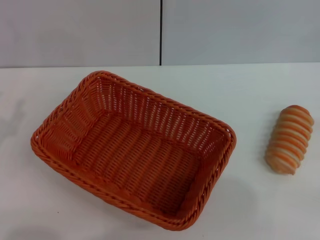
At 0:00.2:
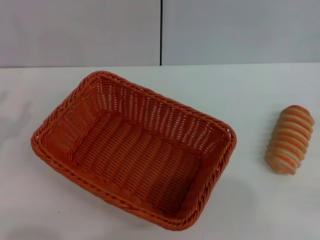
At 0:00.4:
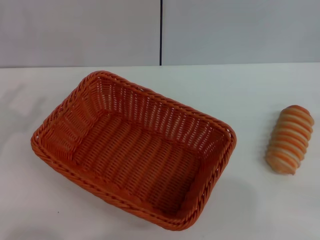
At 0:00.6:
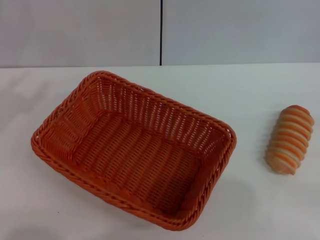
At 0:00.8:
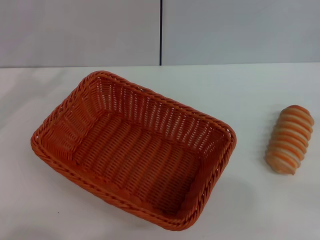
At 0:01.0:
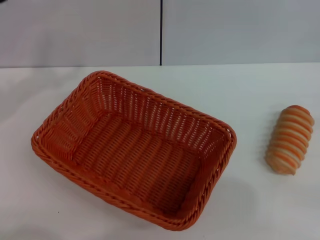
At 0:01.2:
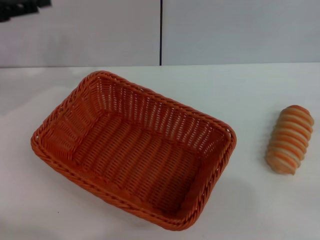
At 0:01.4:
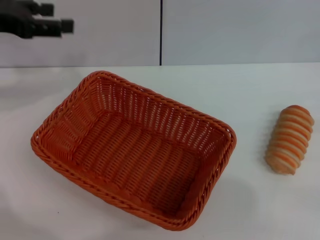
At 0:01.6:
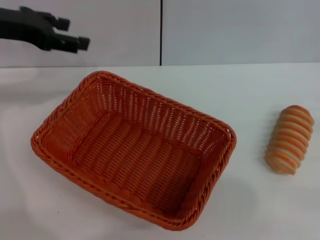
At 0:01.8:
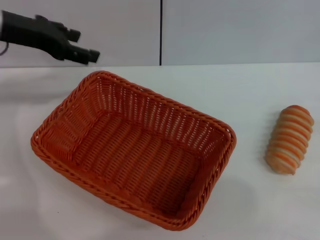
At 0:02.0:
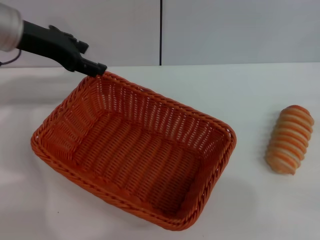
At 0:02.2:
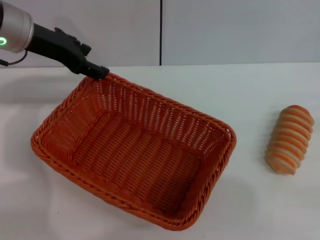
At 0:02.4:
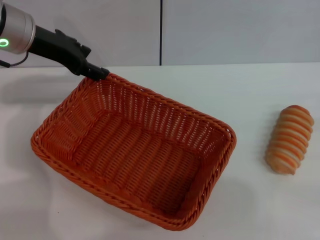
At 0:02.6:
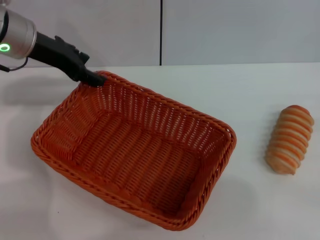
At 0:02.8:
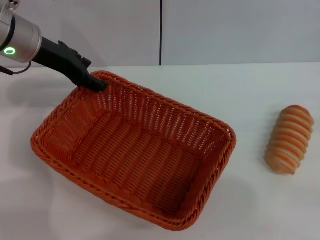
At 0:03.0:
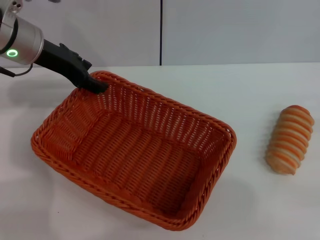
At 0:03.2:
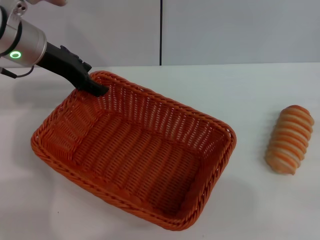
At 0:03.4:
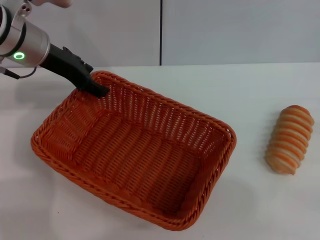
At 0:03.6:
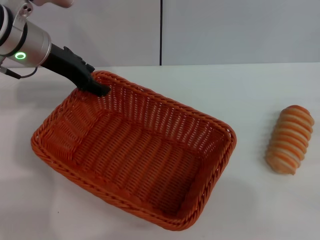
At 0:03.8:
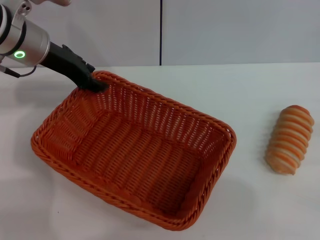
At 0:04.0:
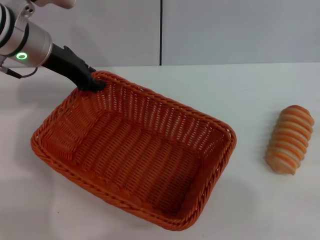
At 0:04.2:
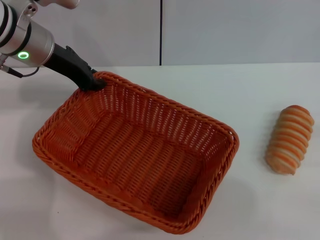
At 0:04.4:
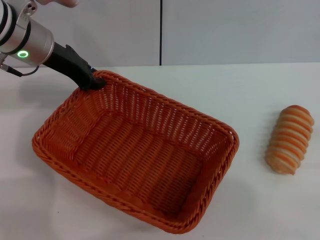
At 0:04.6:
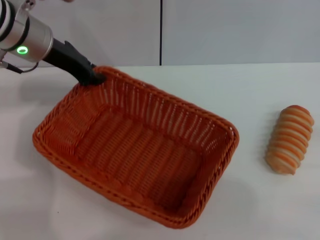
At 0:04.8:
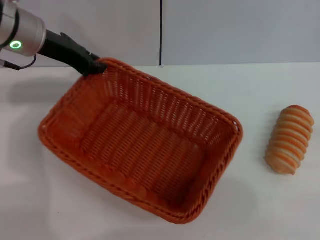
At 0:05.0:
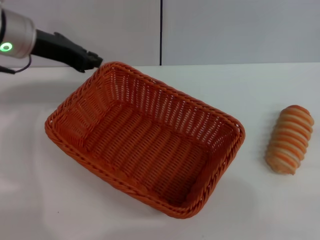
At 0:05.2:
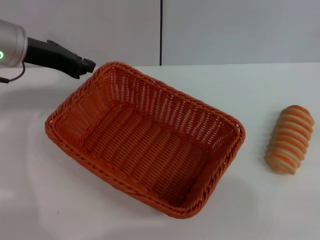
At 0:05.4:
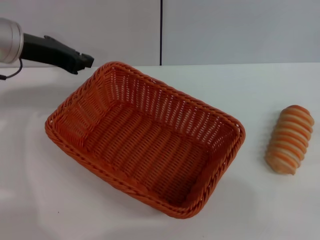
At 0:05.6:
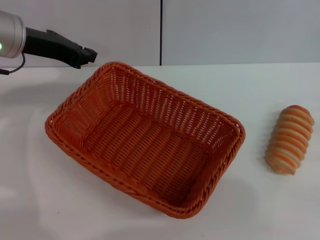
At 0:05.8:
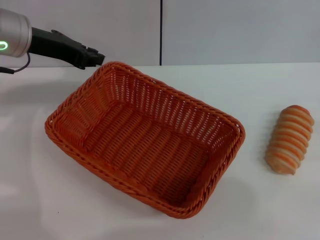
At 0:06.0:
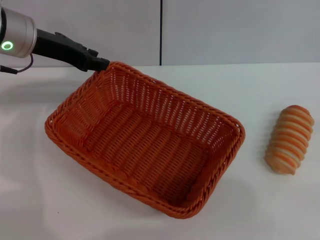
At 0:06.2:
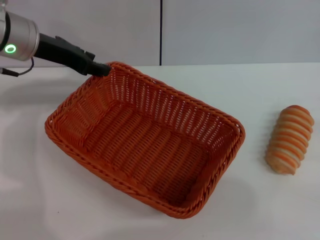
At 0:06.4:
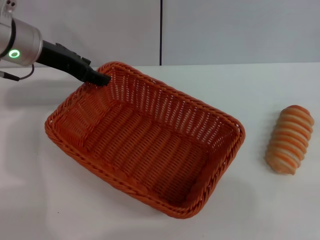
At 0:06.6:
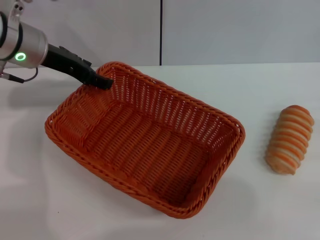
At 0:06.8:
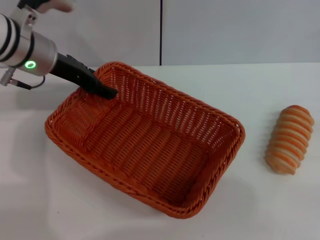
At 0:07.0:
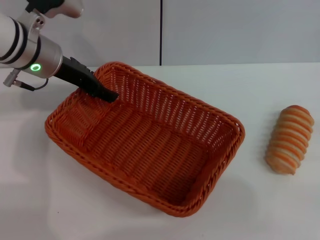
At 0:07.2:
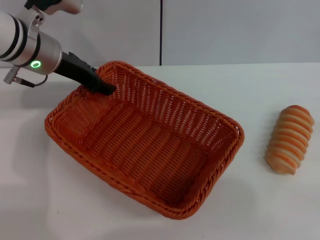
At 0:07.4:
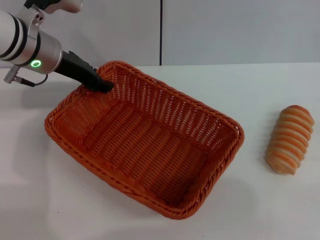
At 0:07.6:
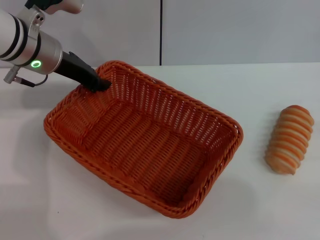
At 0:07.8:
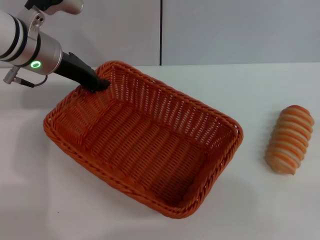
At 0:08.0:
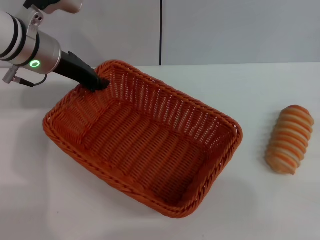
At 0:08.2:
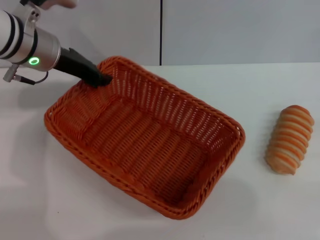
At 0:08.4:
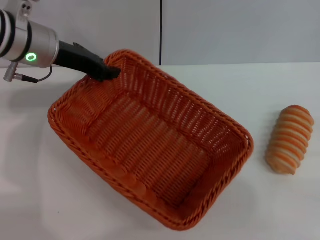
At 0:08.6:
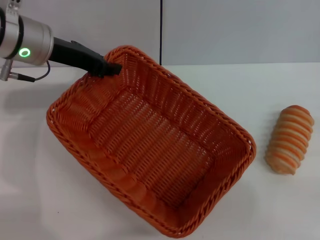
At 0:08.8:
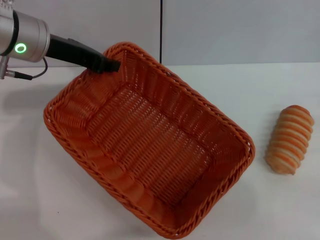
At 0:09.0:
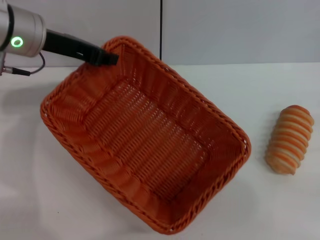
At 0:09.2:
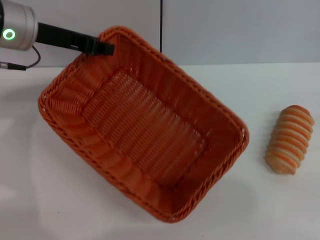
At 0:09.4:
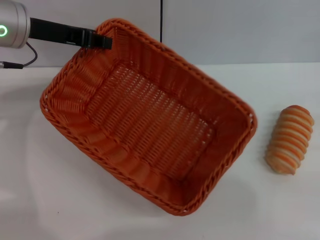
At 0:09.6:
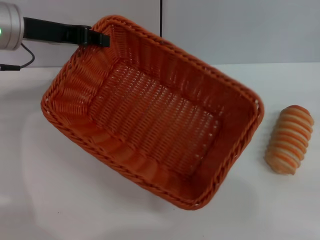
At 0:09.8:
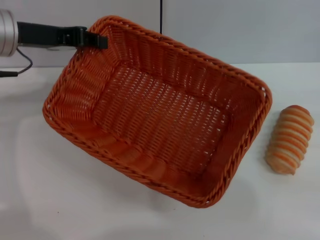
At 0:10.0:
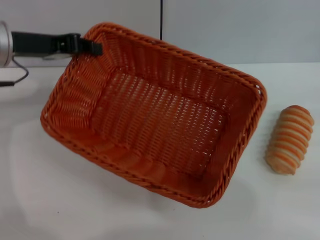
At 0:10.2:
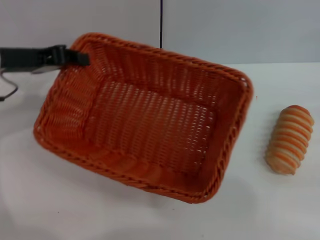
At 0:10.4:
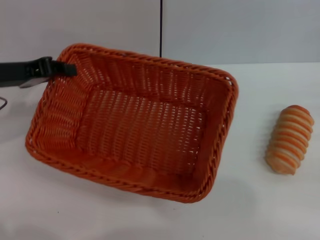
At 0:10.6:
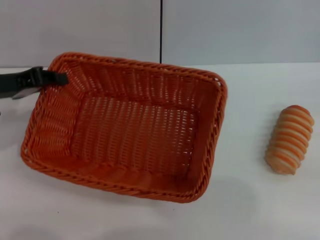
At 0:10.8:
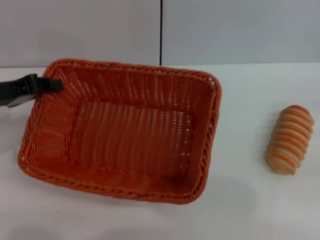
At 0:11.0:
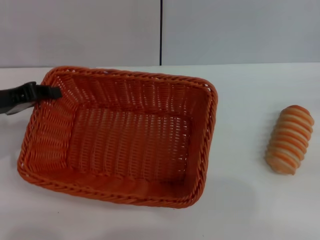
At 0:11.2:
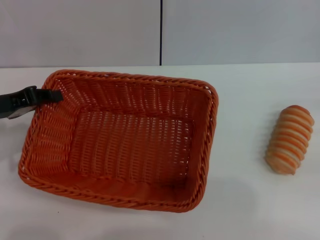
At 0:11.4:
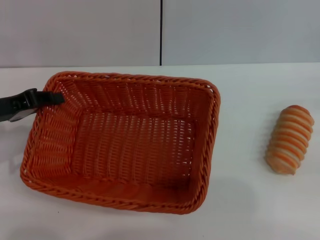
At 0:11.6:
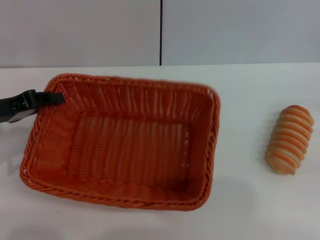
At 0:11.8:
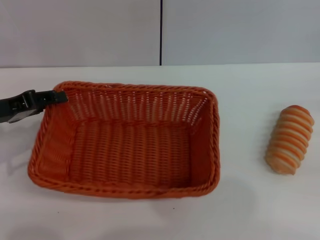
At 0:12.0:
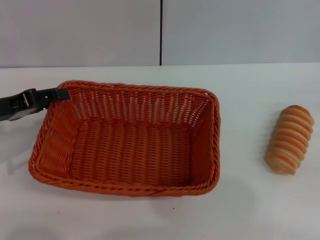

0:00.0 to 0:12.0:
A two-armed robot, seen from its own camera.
Step, 0:00.0 to 0:09.4: Pick up the light basket with the left gripper.
0:00.0 to 0:01.6: The left gripper moves forward and upward, approximately 25 cm.
0:01.6 to 0:03.0: The left gripper travels to the right by some 5 cm.
0:03.0 to 0:04.4: The left gripper closes its fingers.
0:06.0 to 0:07.6: The left gripper opens its fingers.
0:07.6 to 0:09.0: The left gripper ends up about 5 cm from where it was, and closes its fingers.
0:09.0 to 0:10.4: The left gripper travels to the left and backward by some 10 cm.
0:10.4 to 0:12.0: The left gripper moves approximately 5 cm.

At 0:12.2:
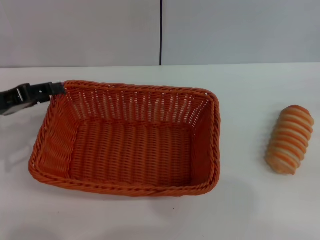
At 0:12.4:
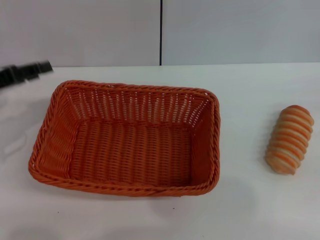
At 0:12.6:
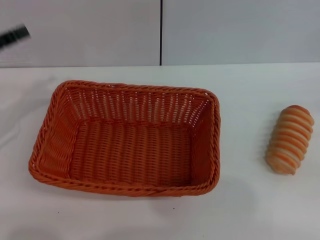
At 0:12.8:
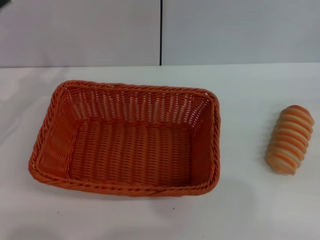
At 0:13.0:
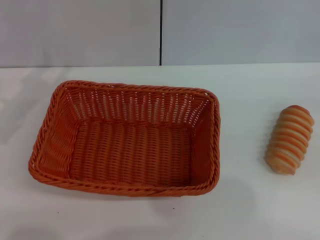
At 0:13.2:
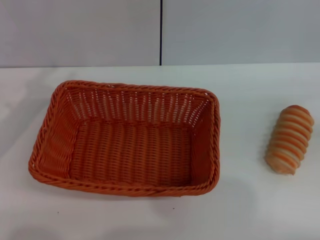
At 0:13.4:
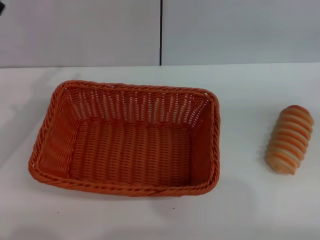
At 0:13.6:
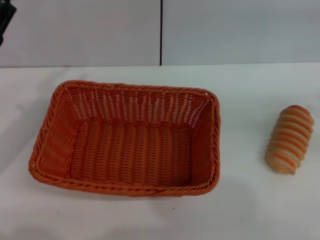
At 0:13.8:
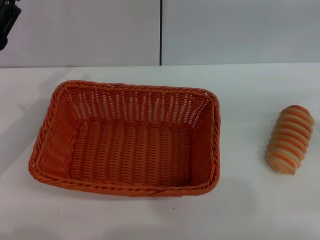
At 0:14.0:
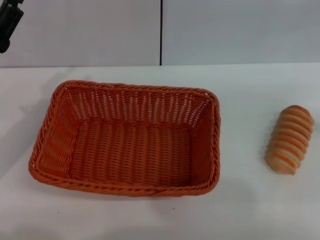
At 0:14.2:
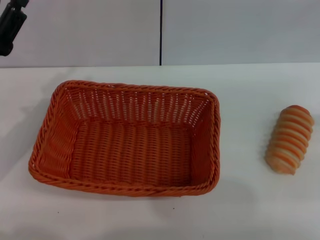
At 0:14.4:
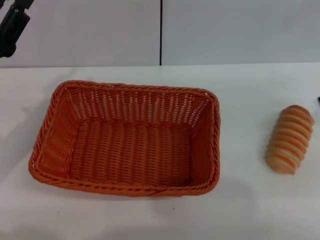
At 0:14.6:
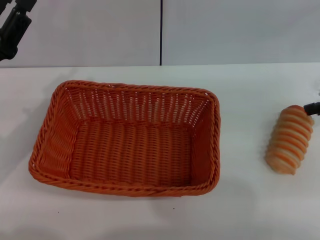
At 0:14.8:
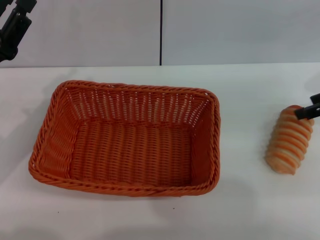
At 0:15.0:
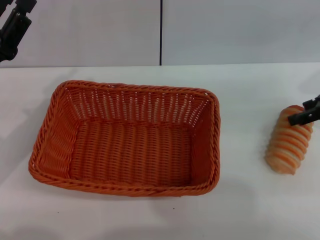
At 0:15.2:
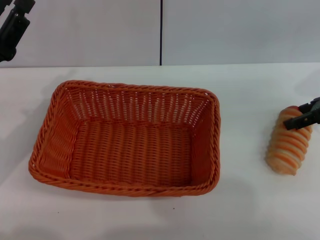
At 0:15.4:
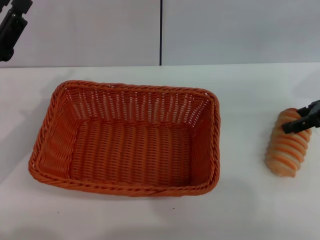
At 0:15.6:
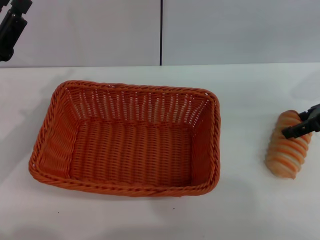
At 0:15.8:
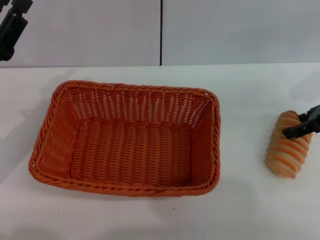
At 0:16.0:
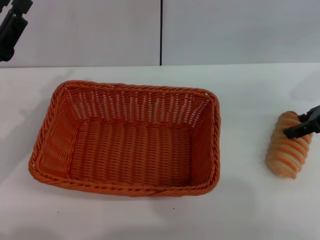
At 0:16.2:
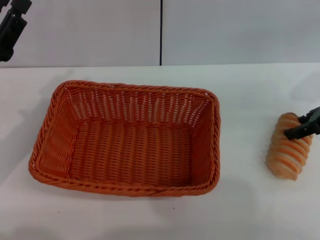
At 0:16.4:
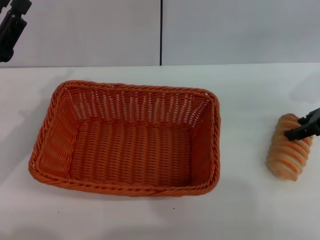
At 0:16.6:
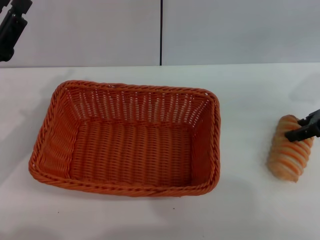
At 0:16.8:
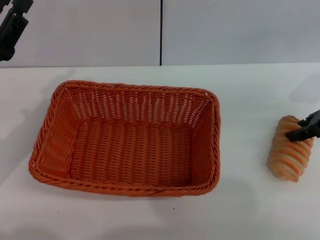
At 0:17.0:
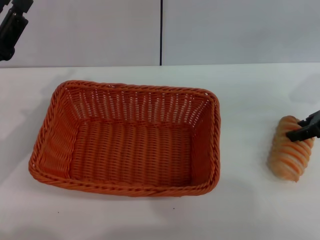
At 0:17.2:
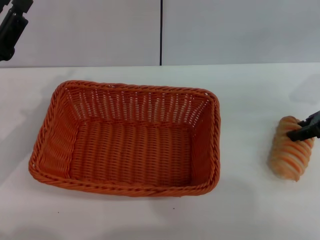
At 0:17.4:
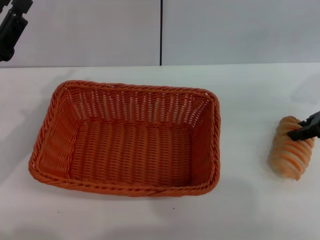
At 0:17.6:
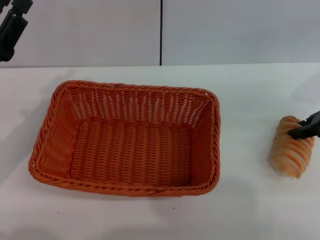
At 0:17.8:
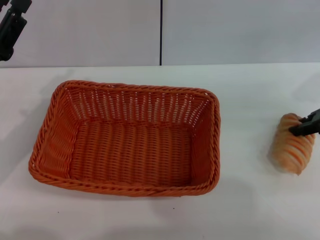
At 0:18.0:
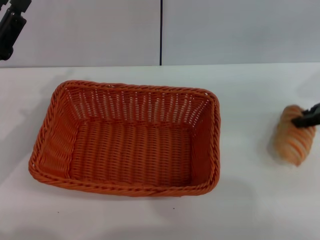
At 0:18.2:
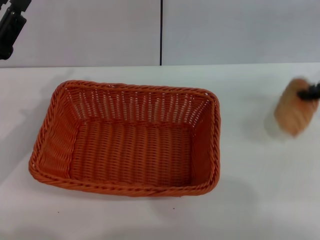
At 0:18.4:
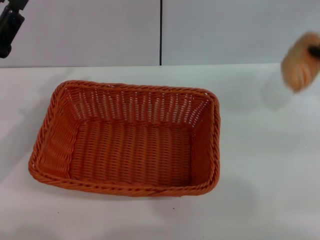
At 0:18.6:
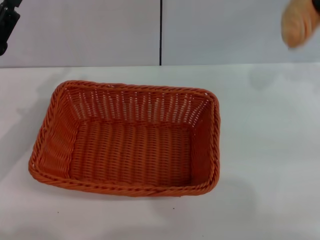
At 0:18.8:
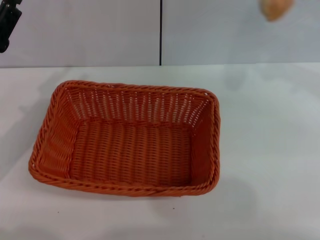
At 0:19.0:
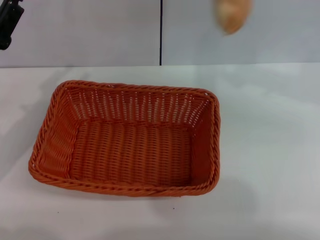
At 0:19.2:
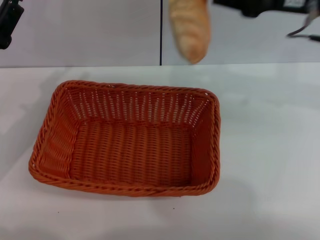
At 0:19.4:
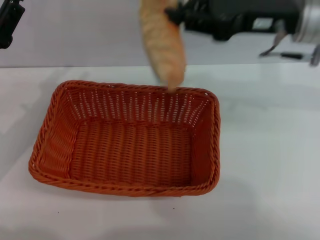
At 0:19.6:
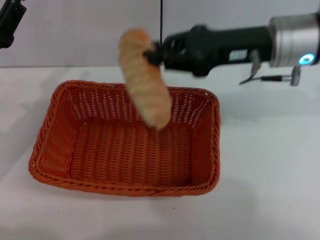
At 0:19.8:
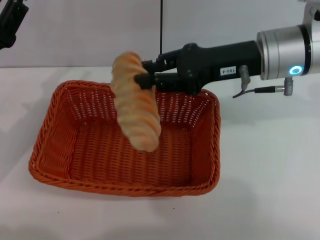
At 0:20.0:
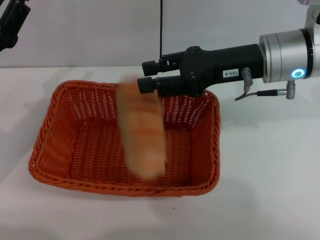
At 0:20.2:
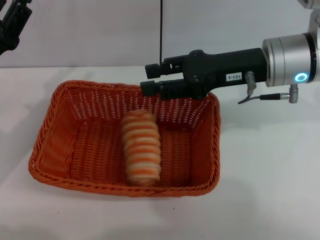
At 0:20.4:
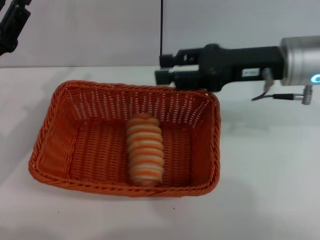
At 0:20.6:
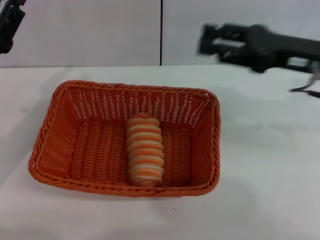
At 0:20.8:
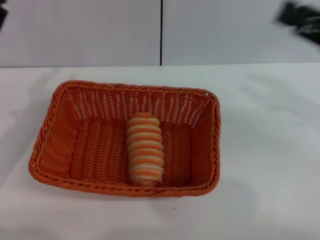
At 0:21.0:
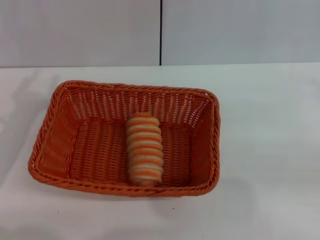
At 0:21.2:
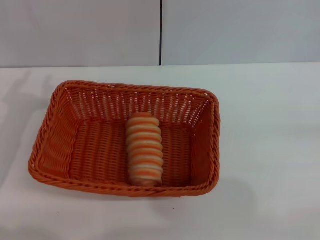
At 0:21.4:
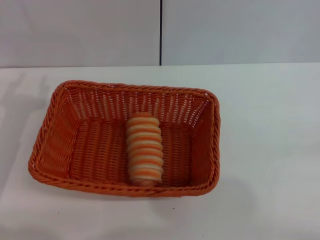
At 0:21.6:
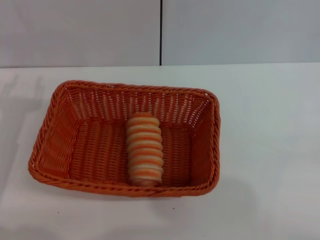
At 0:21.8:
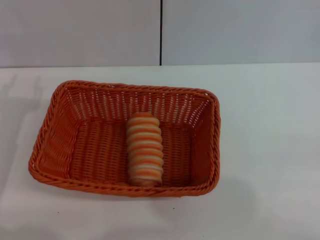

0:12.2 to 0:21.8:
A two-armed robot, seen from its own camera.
Step, 0:12.6 to 0:18.4: Pick up the long bread with the right gripper.
Step, 0:18.6 to 0:20.2: Place the long bread into the light basket with the right gripper.
0:13.8 to 0:15.4: The right gripper goes approximately 15 cm to the left, downward and forward.
0:15.4 to 0:17.0: The right gripper closes its fingers.
0:17.0 to 0:18.6: The right gripper travels upward by about 10 cm, and closes up.
0:18.6 to 0:20.2: The right gripper travels to the left by some 20 cm, and opens its fingers.
0:20.2 to 0:21.8: The right gripper shifts approximately 35 cm to the right and backward.
